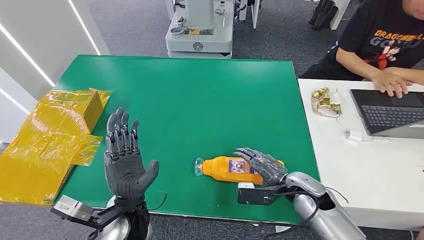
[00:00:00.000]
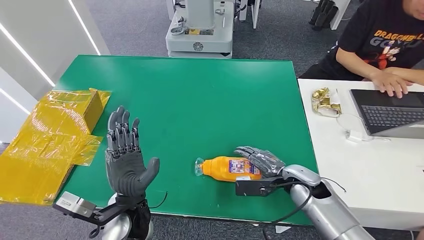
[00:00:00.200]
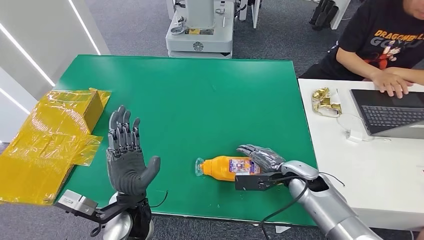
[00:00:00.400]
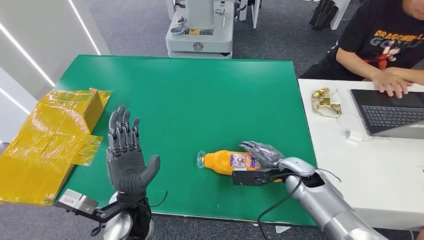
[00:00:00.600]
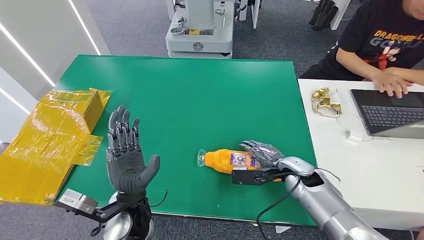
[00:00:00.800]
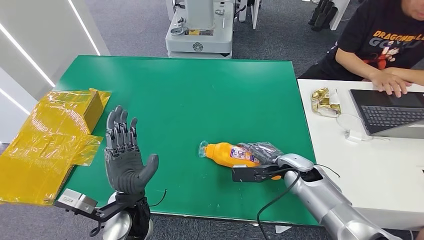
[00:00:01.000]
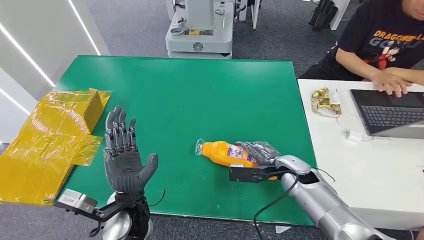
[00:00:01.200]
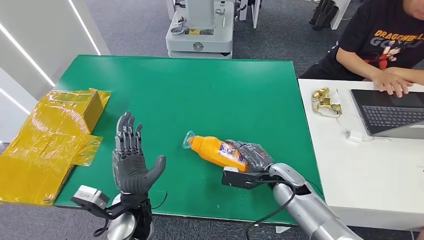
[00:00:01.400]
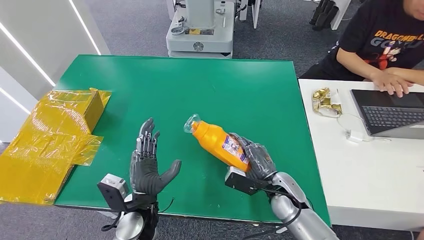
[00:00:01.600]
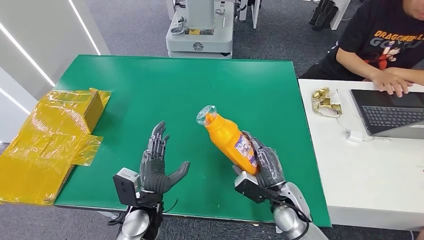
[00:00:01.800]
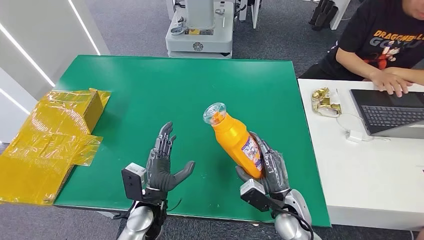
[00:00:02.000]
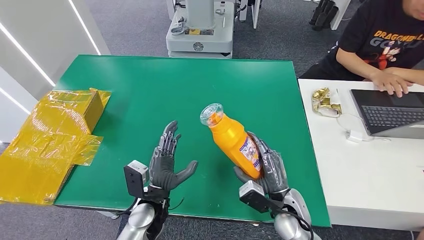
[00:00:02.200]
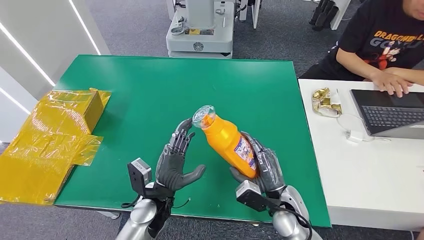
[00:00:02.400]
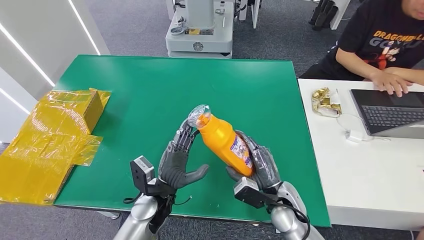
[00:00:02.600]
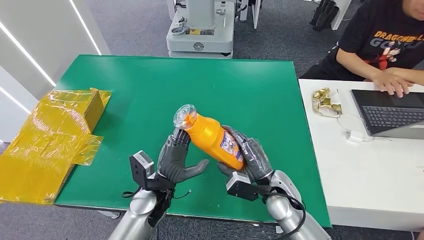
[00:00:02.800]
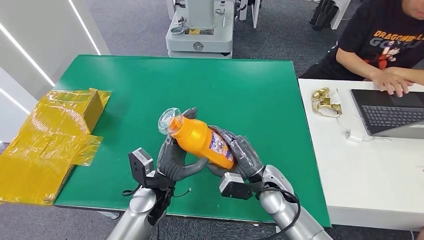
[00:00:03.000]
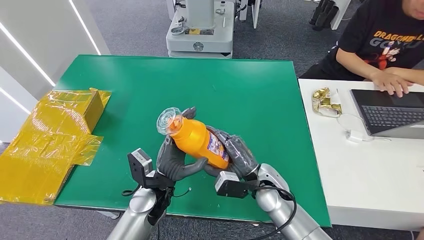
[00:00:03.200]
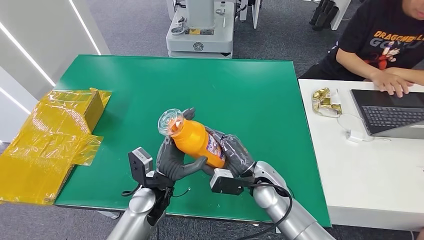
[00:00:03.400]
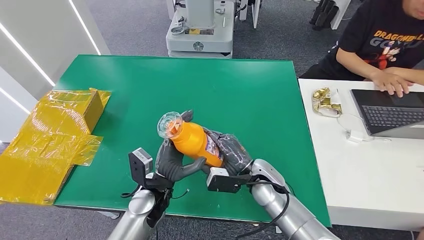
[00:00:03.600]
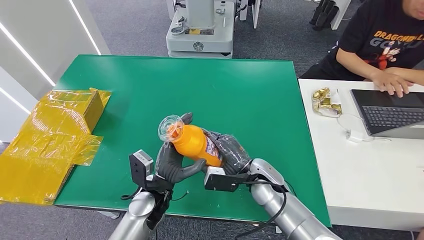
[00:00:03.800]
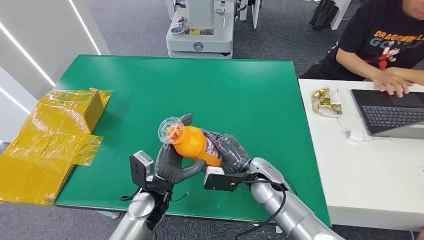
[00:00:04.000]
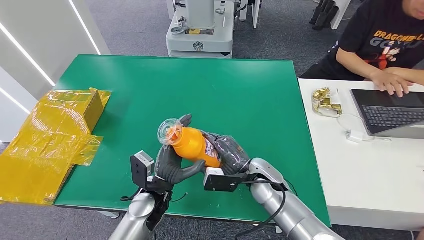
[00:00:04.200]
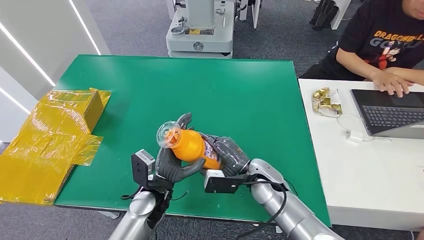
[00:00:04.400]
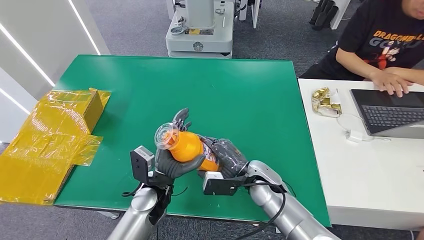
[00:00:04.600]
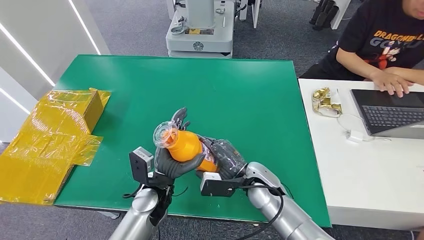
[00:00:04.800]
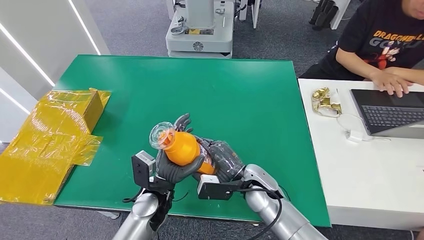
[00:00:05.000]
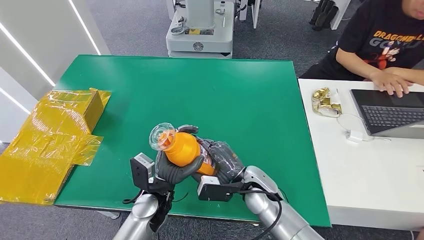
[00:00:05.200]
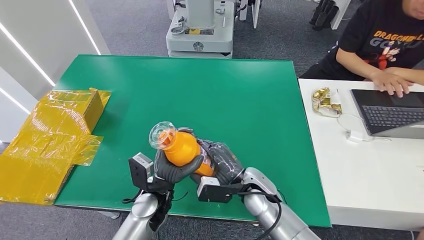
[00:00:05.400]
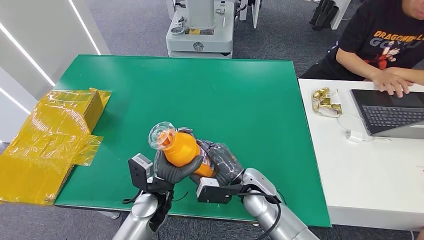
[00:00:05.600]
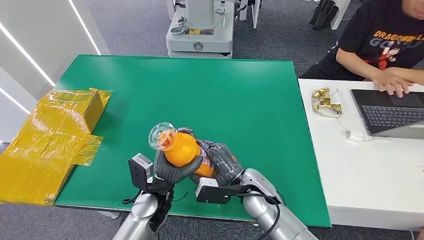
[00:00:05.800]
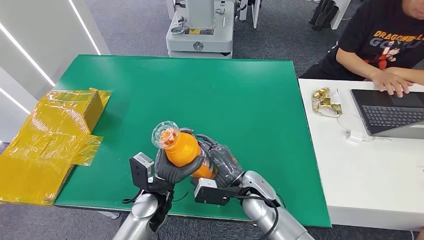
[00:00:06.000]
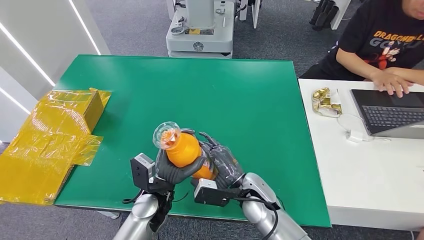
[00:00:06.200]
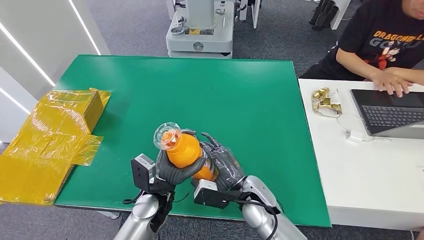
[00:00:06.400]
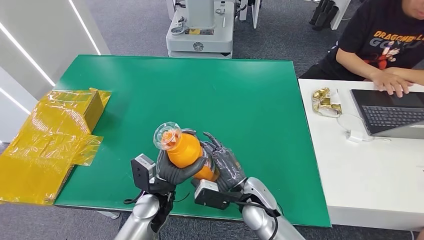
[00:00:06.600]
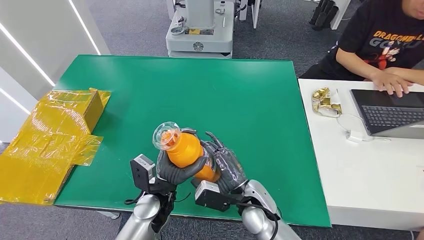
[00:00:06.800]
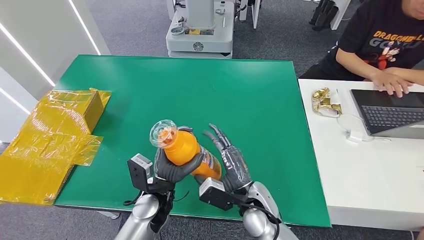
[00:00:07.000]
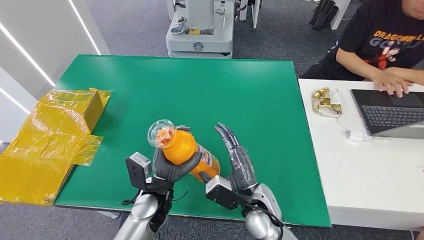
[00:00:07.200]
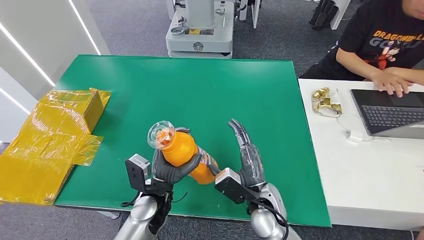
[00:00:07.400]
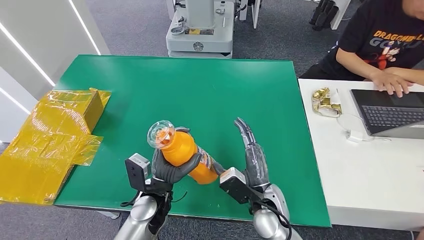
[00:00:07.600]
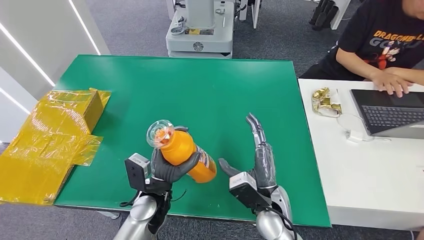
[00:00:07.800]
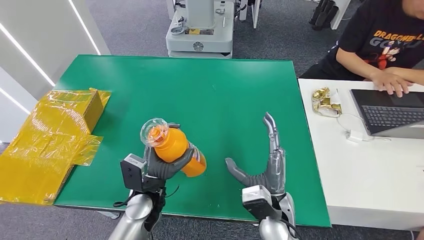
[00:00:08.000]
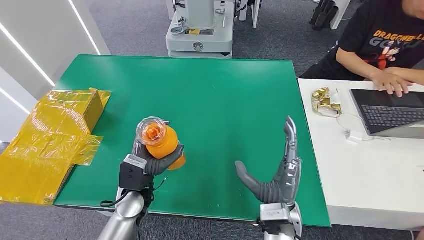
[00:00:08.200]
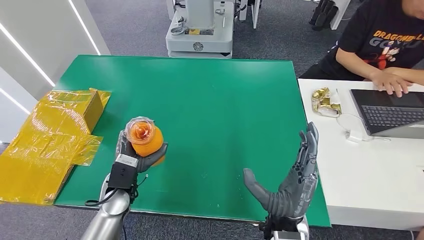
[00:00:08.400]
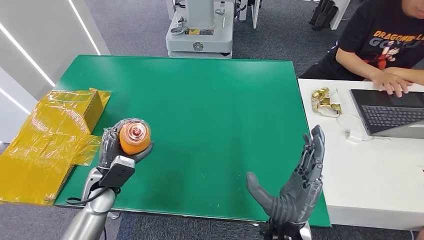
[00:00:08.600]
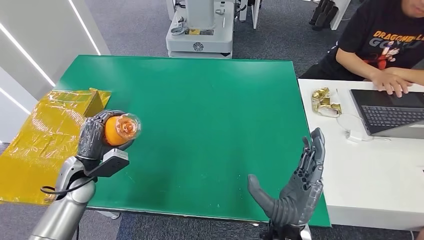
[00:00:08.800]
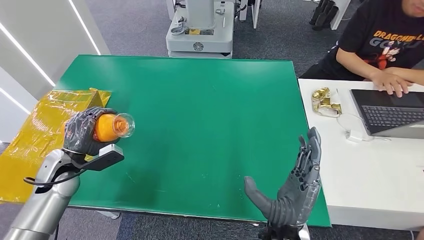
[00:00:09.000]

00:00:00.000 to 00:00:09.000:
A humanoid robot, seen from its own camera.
Step, 00:00:00.000 to 00:00:03.200: Pick up the bottle from the table.
Step, 00:00:03.400 to 00:00:09.000: Turn the bottle to the front side.
00:00:01.600 to 00:00:03.000: The left hand ends up approximately 5 cm from where it was; the right hand moves some 5 cm.
00:00:03.000 to 00:00:06.000: There are only small adjustments of the hands.
00:00:07.600 to 00:00:09.000: The left hand goes some 25 cm to the left; the right hand moves backward and upward, roughly 10 cm.
